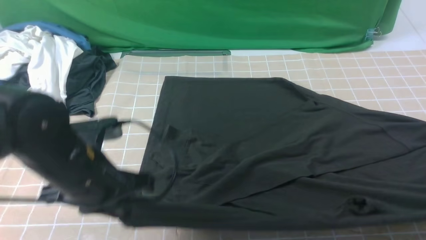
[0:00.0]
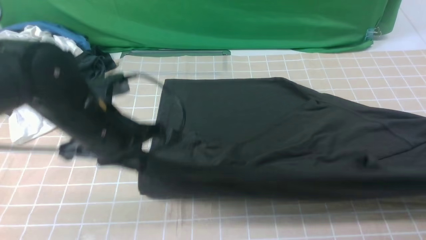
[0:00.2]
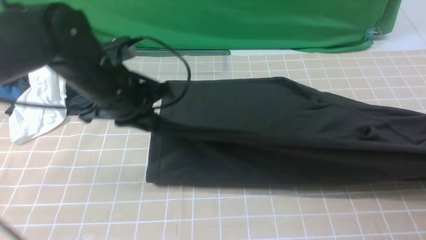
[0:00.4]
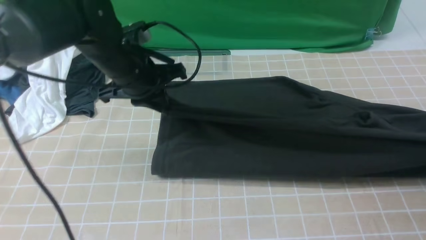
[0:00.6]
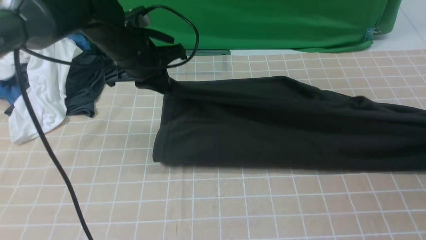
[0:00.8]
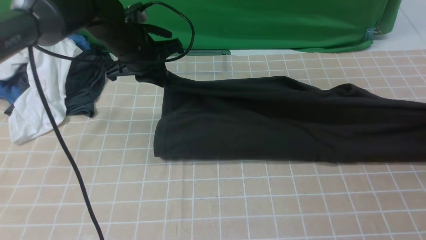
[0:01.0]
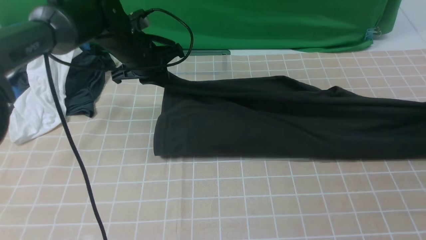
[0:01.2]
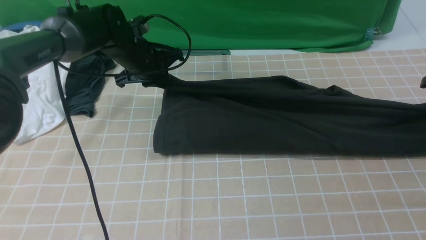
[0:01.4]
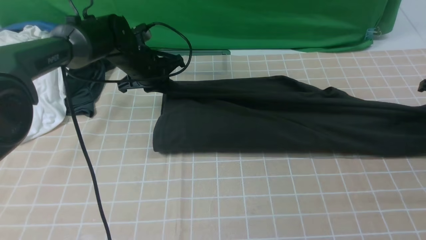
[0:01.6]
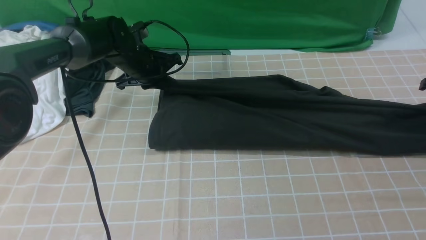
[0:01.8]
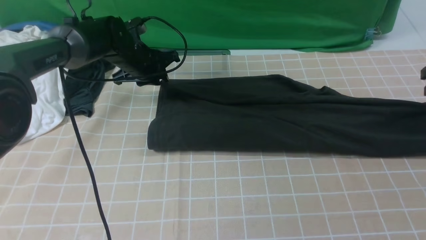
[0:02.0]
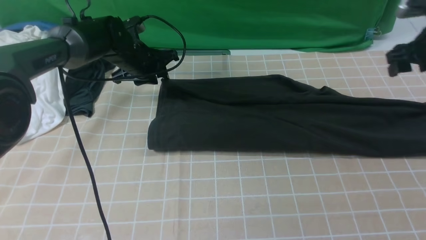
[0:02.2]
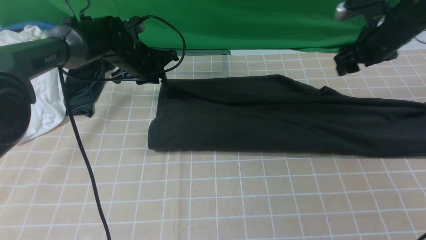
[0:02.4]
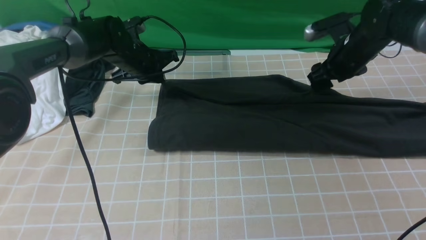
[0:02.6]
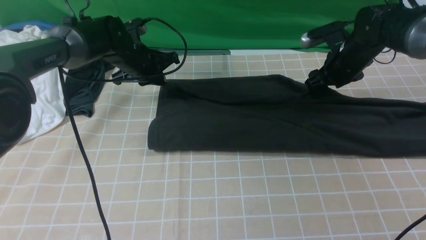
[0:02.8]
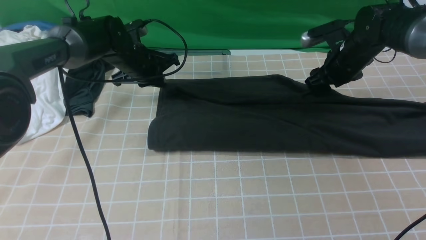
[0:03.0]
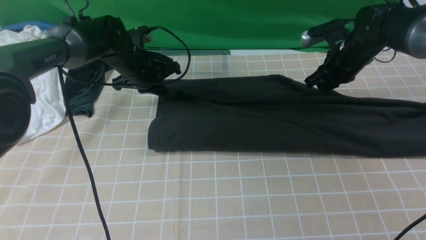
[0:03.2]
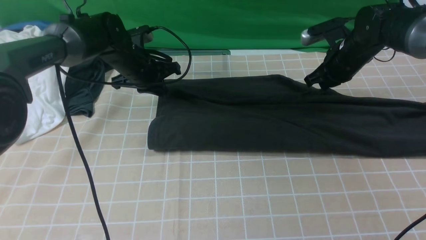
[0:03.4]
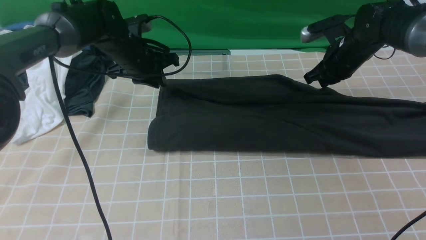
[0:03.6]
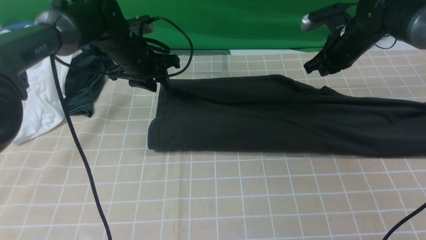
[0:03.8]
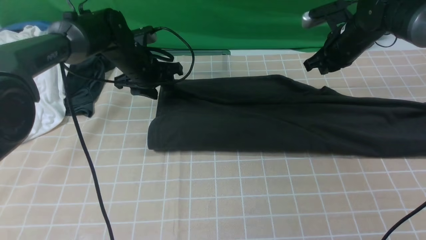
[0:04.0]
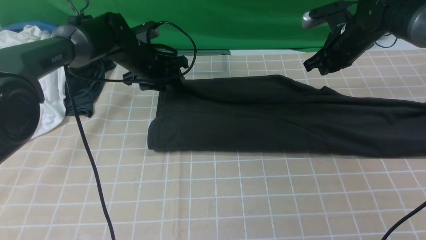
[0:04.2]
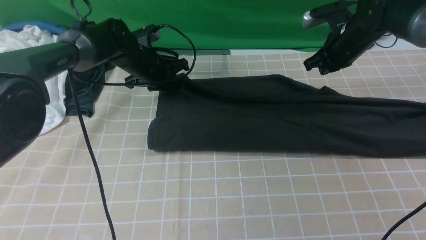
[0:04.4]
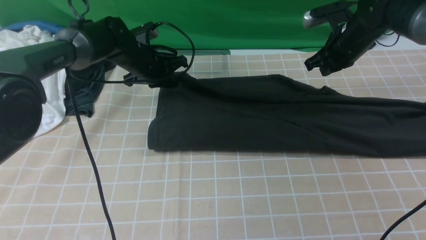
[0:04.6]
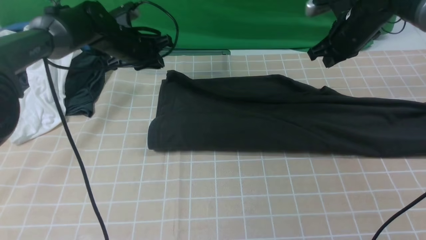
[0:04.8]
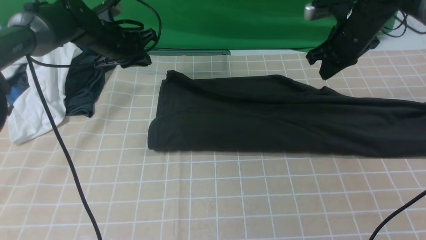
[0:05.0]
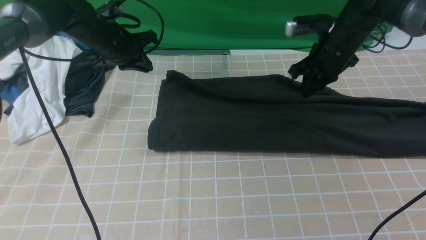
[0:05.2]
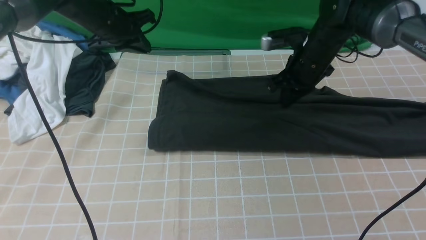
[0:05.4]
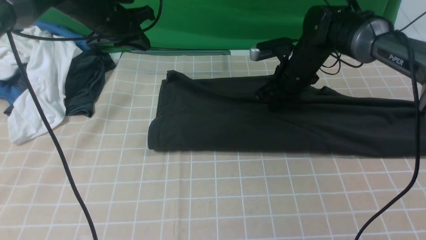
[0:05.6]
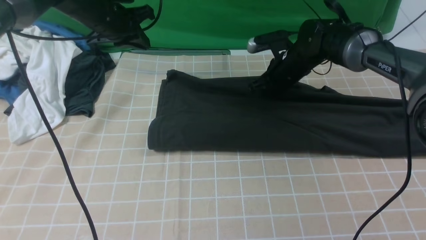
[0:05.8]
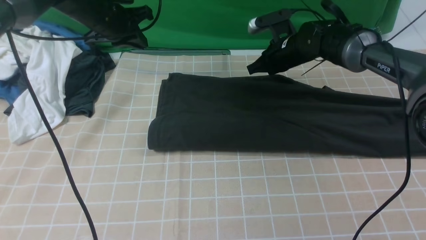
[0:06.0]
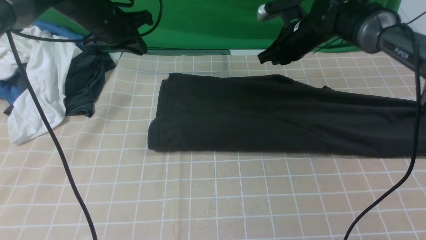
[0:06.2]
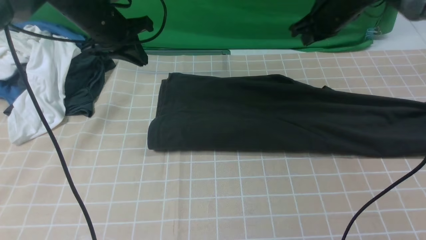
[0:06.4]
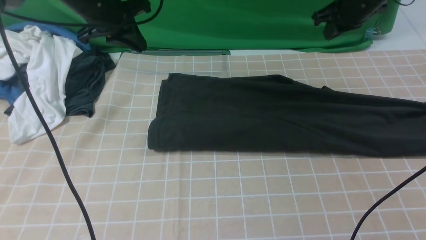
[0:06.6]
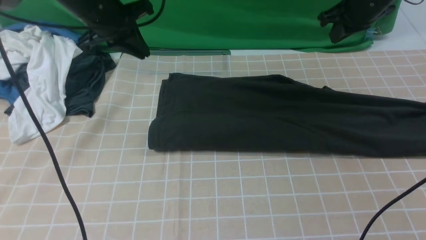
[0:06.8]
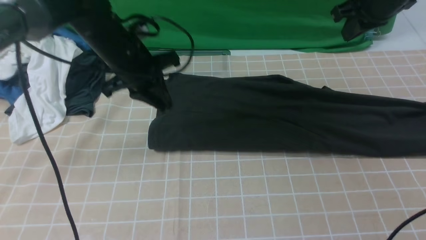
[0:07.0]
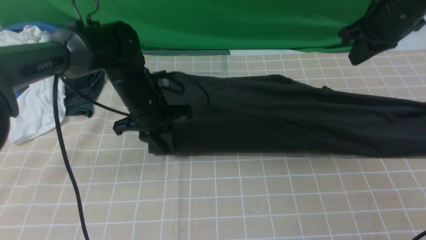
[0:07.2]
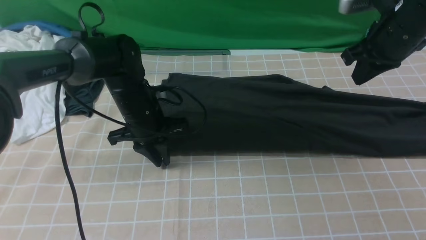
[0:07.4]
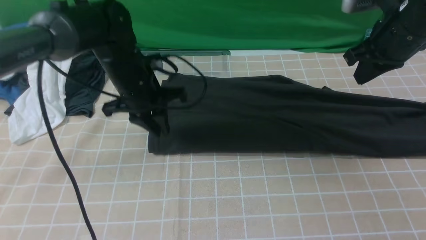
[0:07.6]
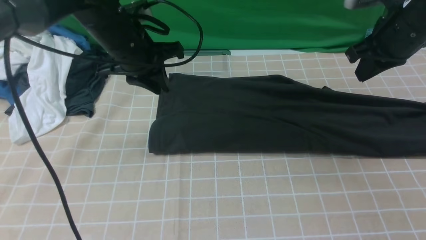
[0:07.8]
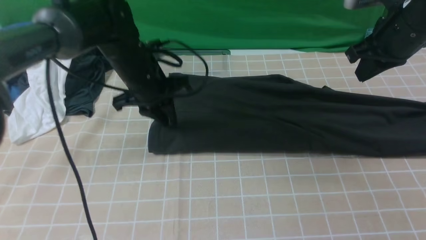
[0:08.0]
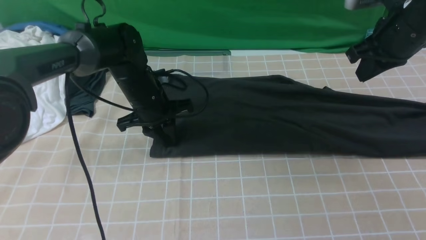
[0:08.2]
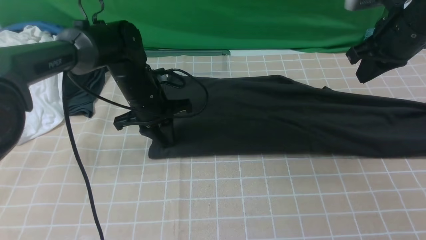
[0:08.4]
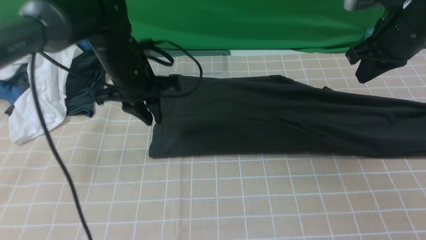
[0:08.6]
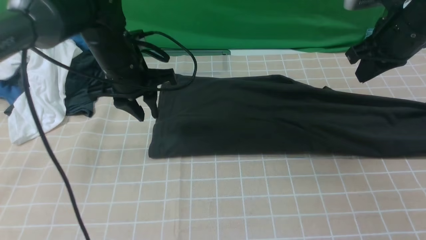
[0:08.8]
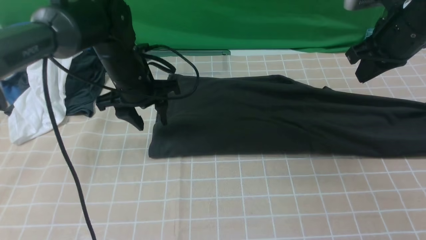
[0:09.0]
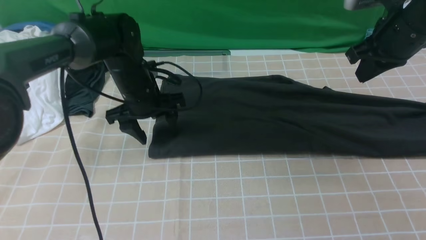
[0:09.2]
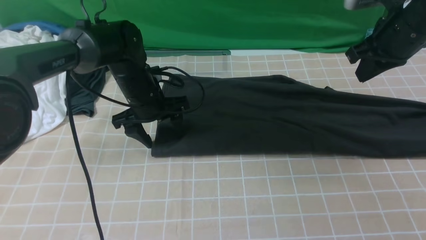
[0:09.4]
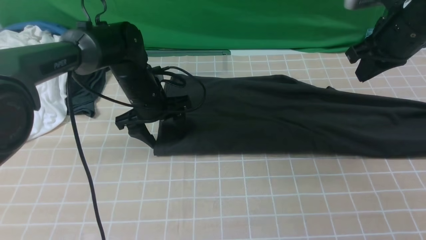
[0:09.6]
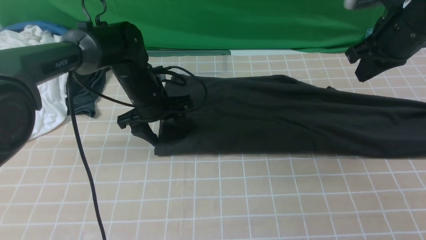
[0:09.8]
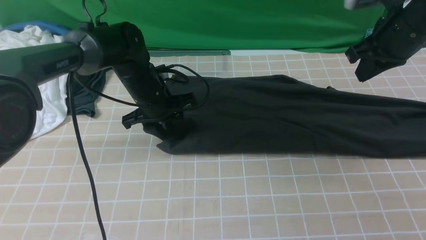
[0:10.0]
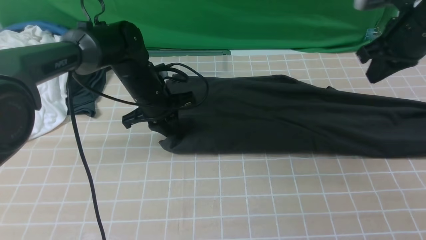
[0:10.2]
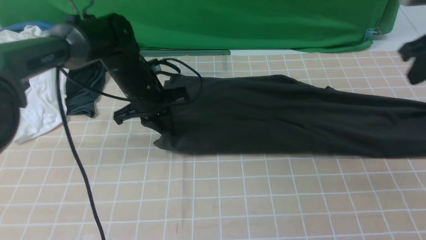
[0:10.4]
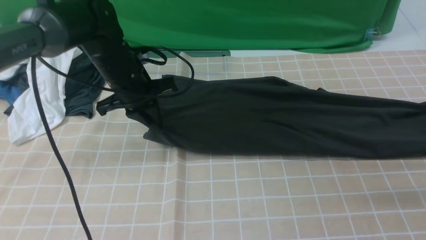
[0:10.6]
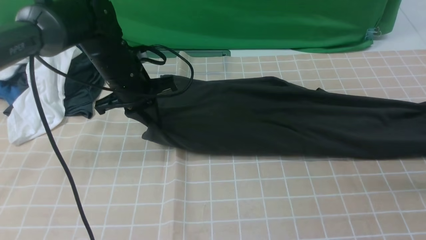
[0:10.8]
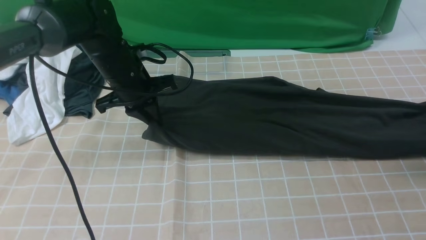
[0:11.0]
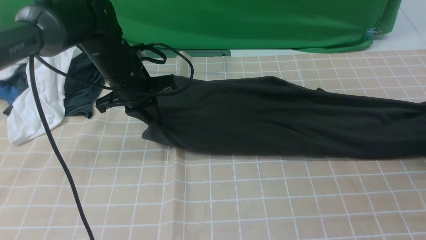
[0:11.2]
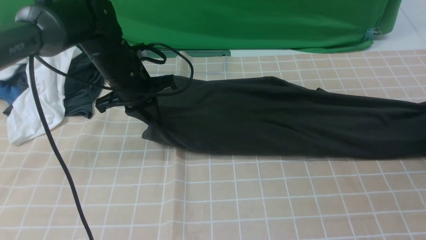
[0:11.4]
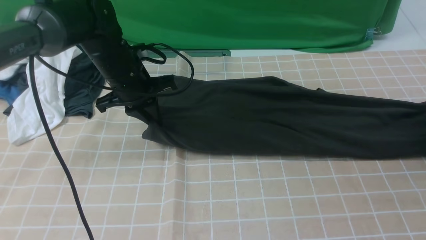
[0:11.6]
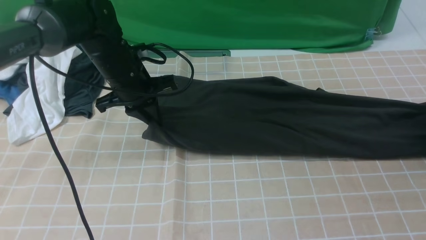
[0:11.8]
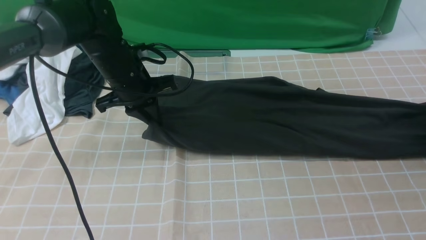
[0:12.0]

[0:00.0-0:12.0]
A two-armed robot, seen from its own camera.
0:00.0 to 0:01.6: The grippers both shift forward by some 20 cm.
0:01.6 to 0:03.0: The right gripper heads to the left, covering about 20 cm, and opens up.
0:03.0 to 0:04.4: The right gripper closes its fingers. Meanwhile the left gripper opens and closes again.
0:04.4 to 0:06.0: The left gripper shifts roughly 10 cm upward and to the left. The right gripper heads to the left, covering approximately 10 cm.
0:06.0 to 0:07.6: The right gripper shifts roughly 20 cm backward, upward and to the right; the left gripper shifts roughly 10 cm backward and to the right.
0:07.6 to 0:09.0: The left gripper opens up.
0:09.0 to 0:10.4: The left gripper closes up; the right gripper travels to the right by about 10 cm.
0:10.4 to 0:12.0: The right gripper goes some 20 cm downward and to the right, and opens up.

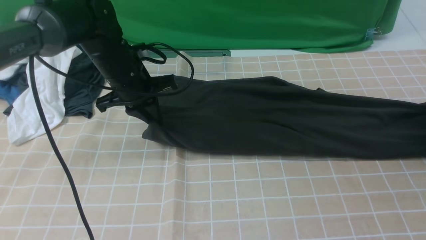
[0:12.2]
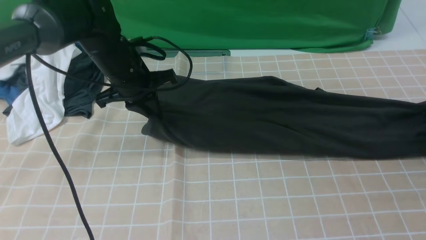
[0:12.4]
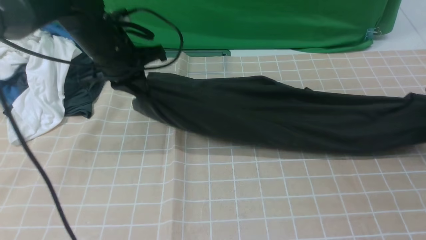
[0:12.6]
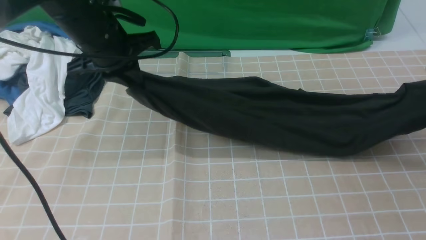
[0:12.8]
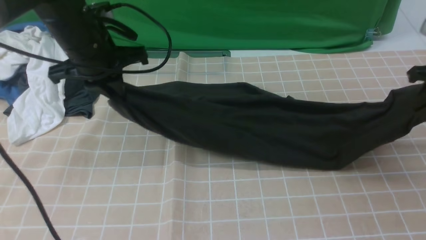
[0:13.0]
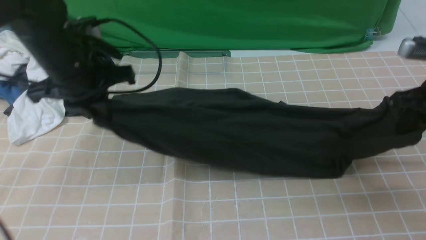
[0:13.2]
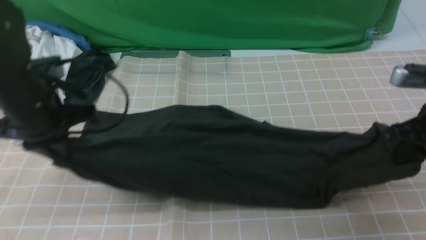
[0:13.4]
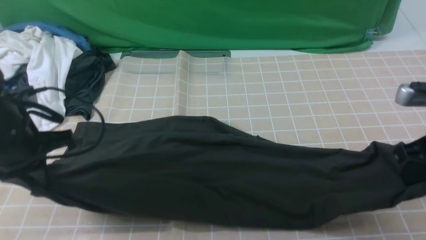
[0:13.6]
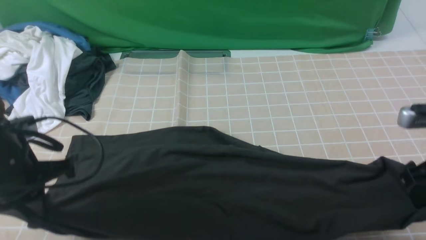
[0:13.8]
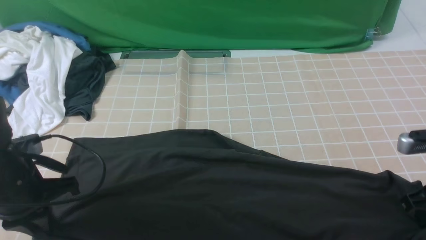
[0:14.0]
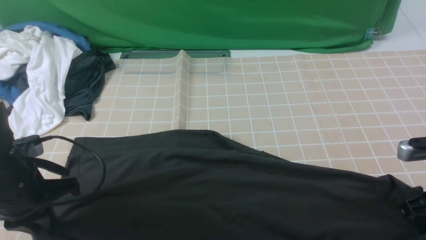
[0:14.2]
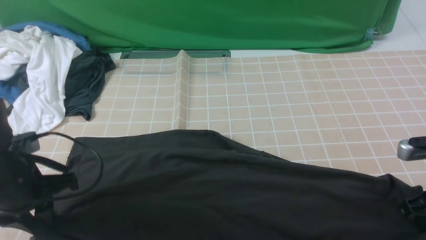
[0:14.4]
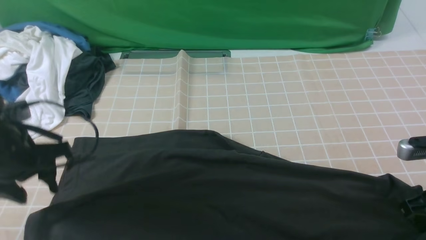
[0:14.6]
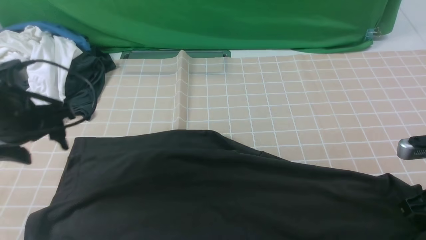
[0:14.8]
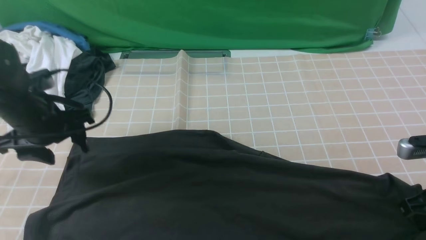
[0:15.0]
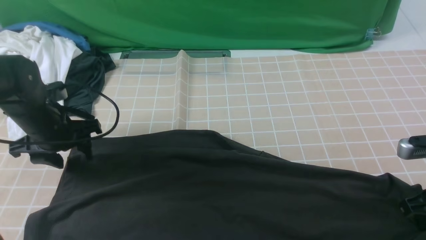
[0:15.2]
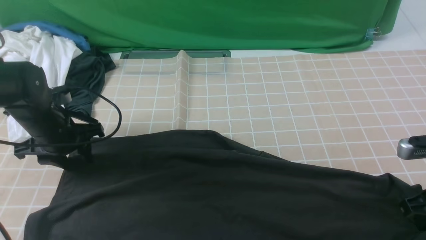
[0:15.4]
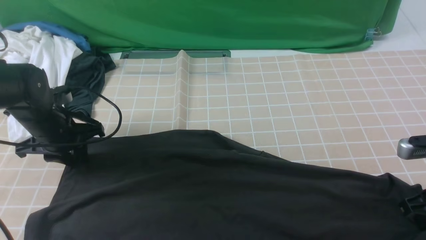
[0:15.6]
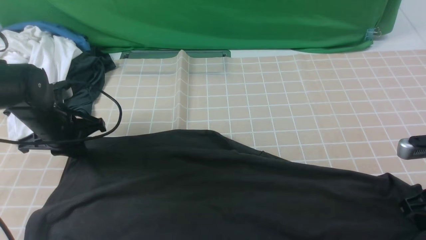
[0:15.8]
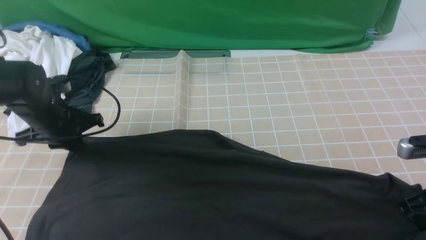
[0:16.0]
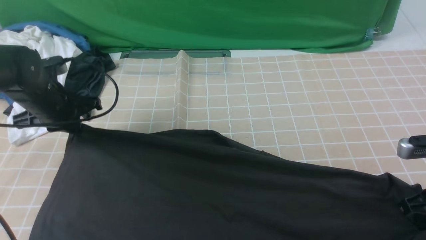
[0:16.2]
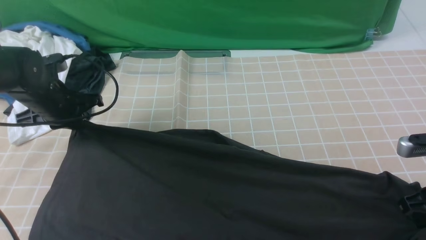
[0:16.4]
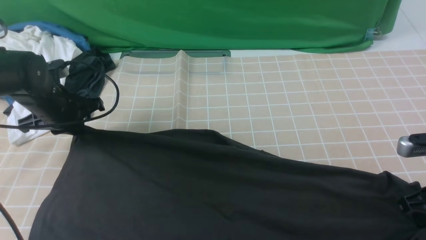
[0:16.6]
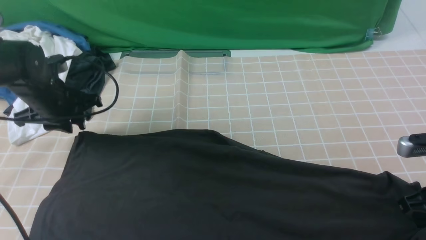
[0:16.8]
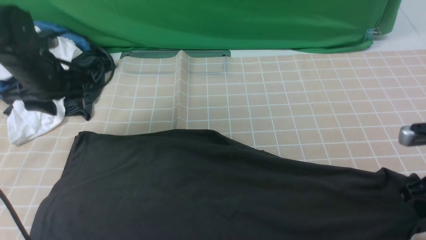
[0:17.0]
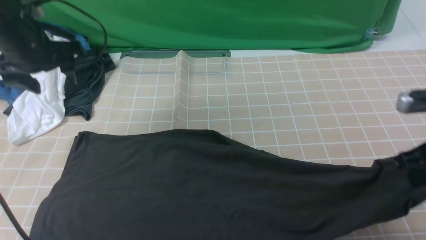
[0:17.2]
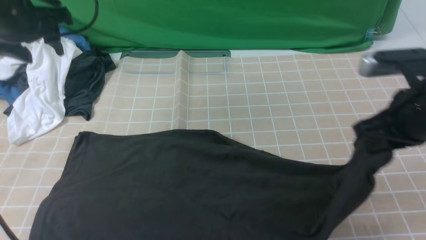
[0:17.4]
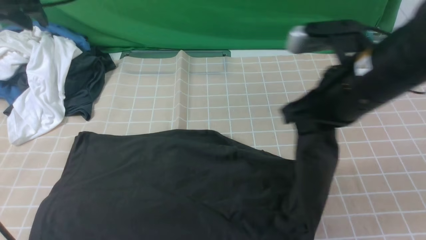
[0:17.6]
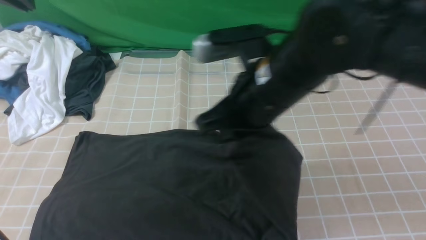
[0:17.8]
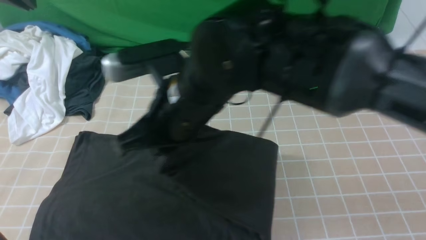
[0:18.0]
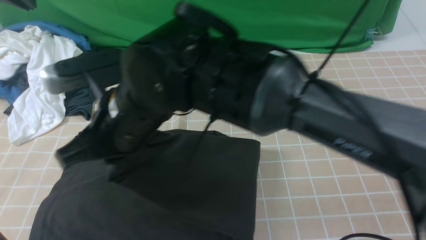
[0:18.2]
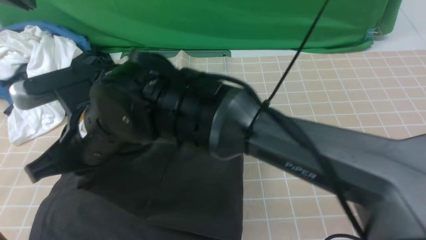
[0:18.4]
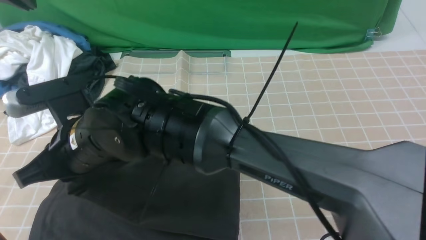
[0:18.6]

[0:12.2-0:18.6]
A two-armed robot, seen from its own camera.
Step, 0:12.2 to 0:17.0: use the right arm to clamp the right edge of the fabric.
0:12.2 to 0:13.8: The right gripper travels backward, to the left and upward by about 20 cm, and closes. Meanwhile the left gripper is displaced backward and to the left by roughly 20 cm.
0:13.8 to 0:15.4: The left gripper goes some 10 cm forward and downward, and opens.
0:15.4 to 0:17.0: The left gripper travels upward by some 10 cm, and closes, then reopens.
0:17.0 to 0:18.6: The right gripper moves to the left, approximately 50 cm. The left gripper shifts some 15 cm upward, and closes.
